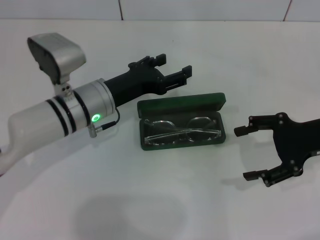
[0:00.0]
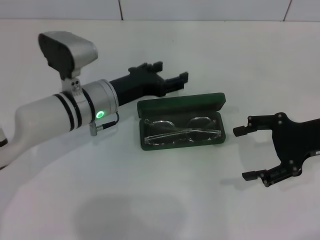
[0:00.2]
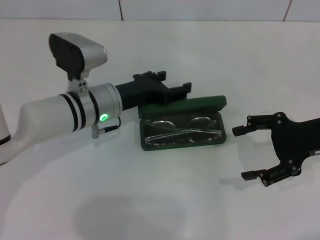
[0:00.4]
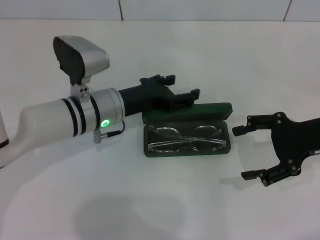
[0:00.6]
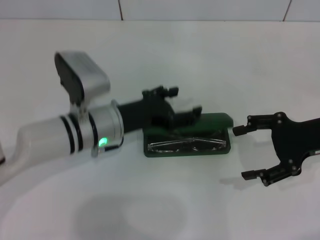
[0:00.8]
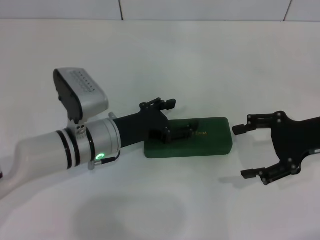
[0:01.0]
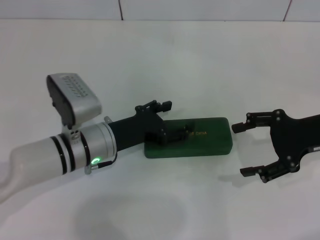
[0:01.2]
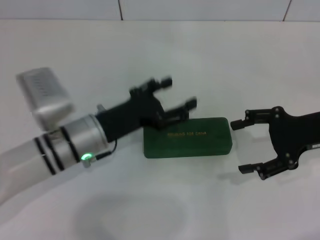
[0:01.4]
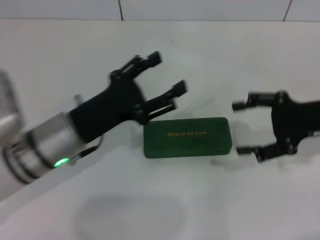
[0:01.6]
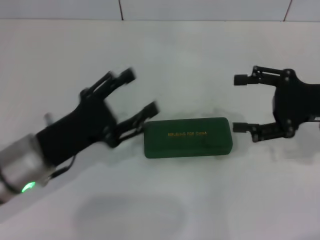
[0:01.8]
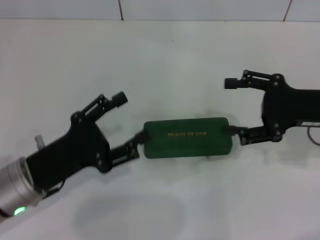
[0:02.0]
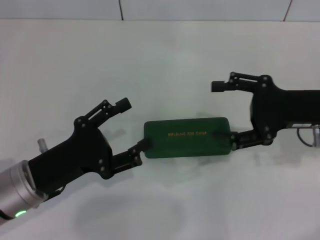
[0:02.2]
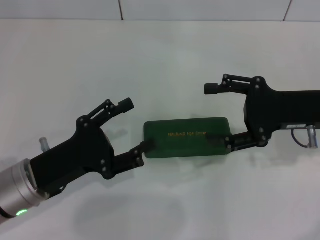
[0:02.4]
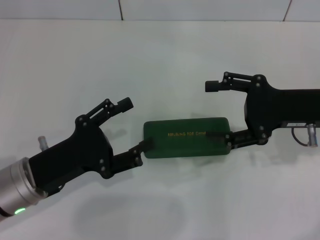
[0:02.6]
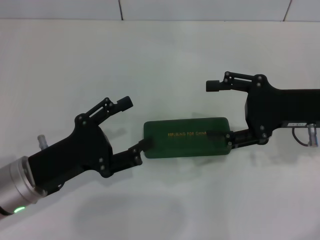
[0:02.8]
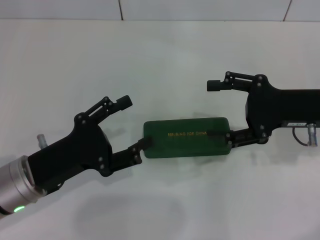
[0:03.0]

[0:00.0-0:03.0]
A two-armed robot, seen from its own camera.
0:00.0 to 0:01.6: The left gripper heads backward, covering some 5 cm.
0:01.6 to 0:03.0: The left gripper goes some 5 cm to the left.
